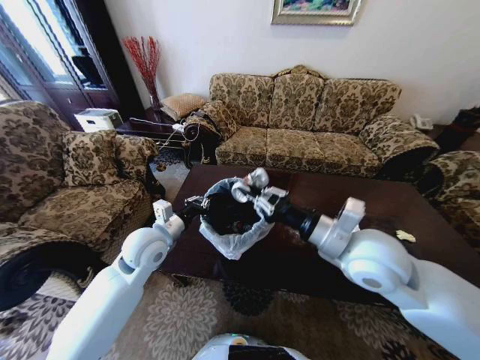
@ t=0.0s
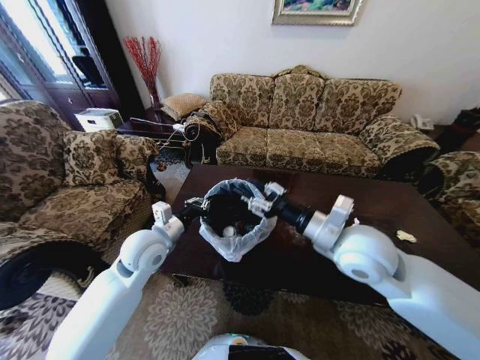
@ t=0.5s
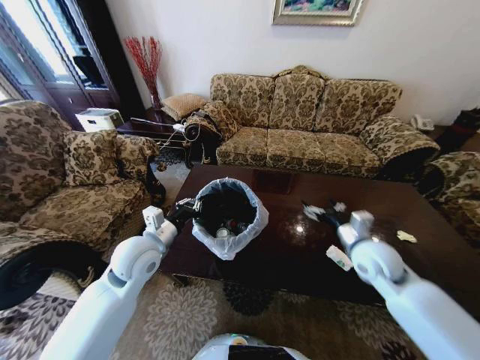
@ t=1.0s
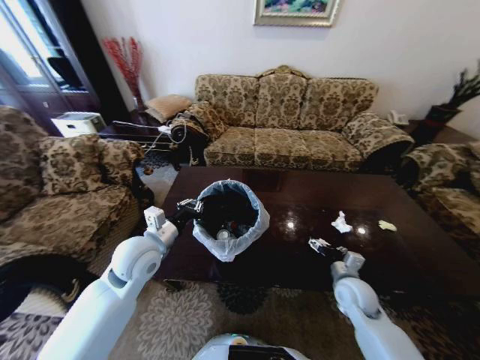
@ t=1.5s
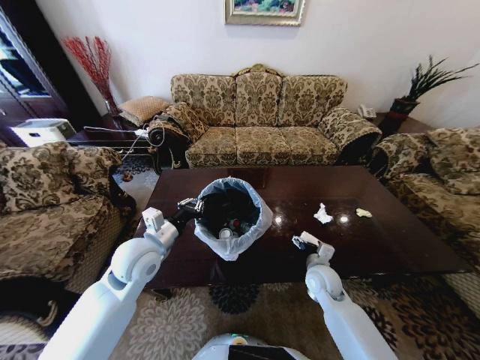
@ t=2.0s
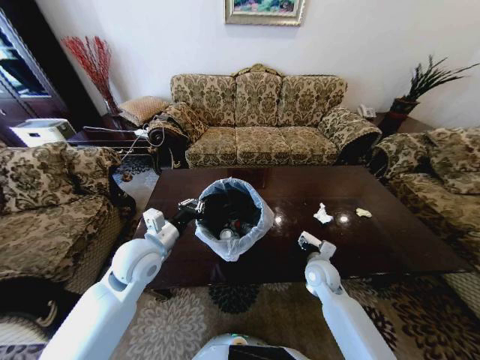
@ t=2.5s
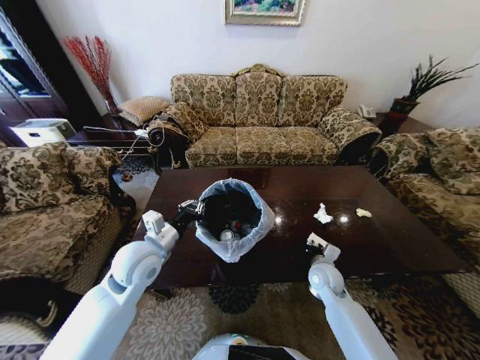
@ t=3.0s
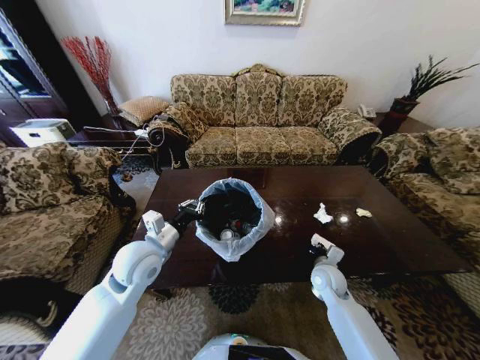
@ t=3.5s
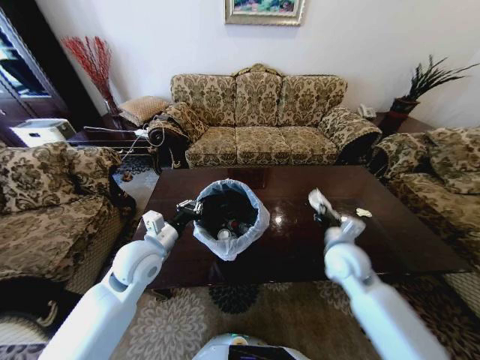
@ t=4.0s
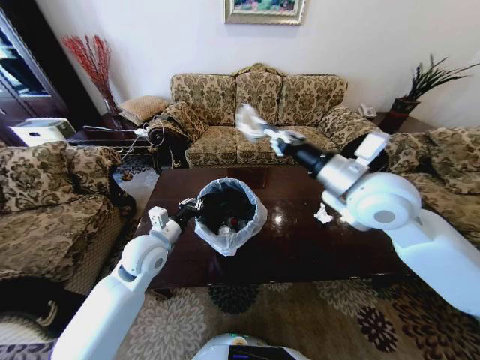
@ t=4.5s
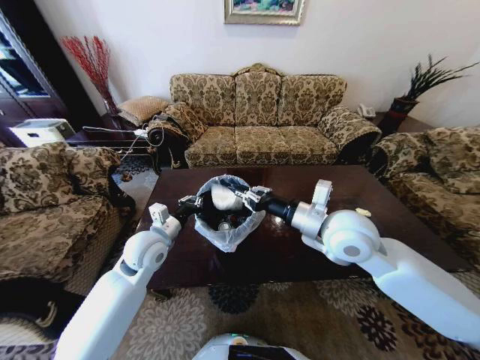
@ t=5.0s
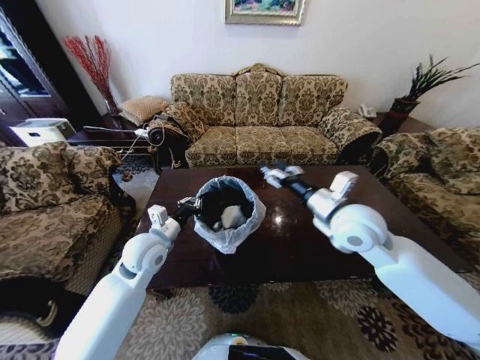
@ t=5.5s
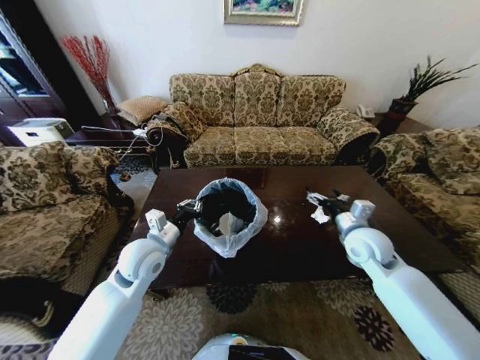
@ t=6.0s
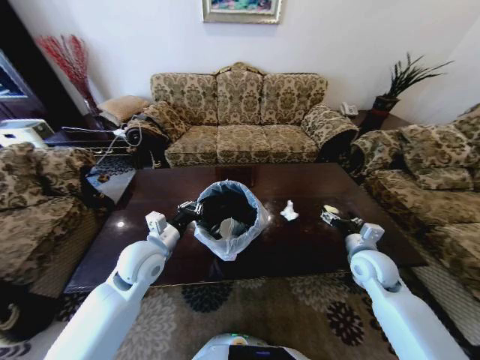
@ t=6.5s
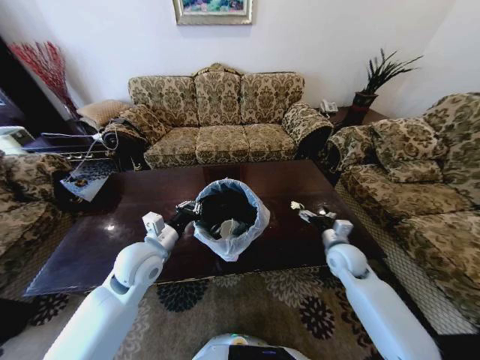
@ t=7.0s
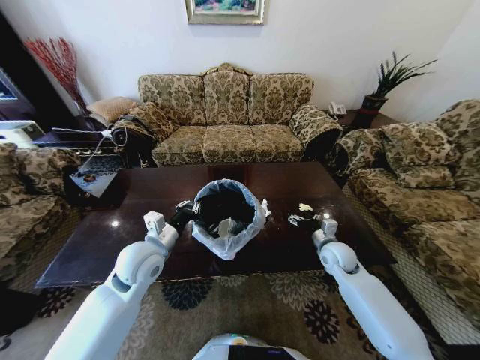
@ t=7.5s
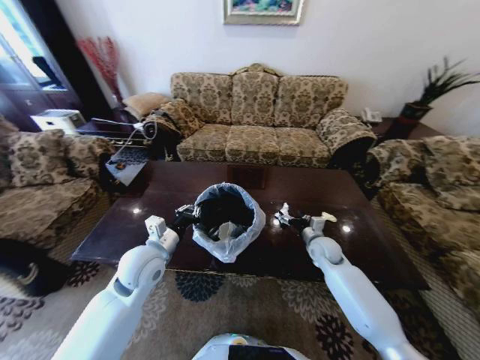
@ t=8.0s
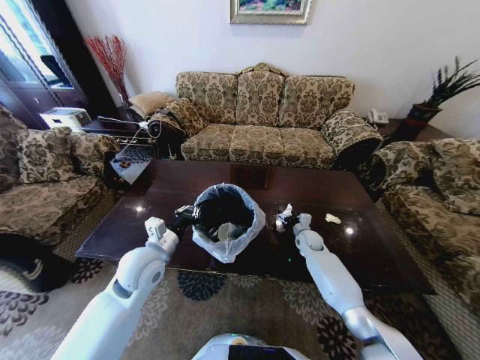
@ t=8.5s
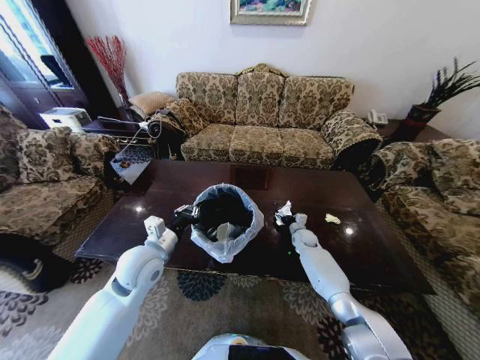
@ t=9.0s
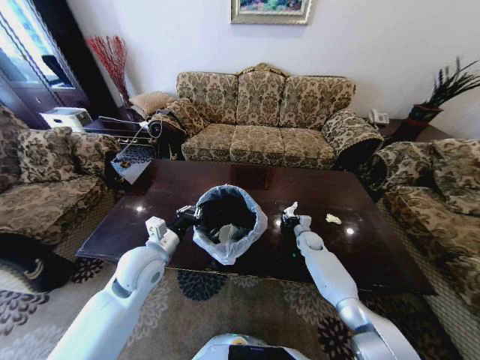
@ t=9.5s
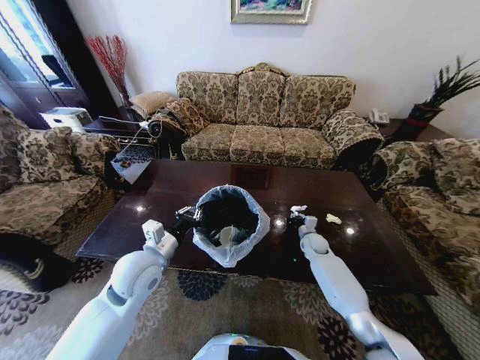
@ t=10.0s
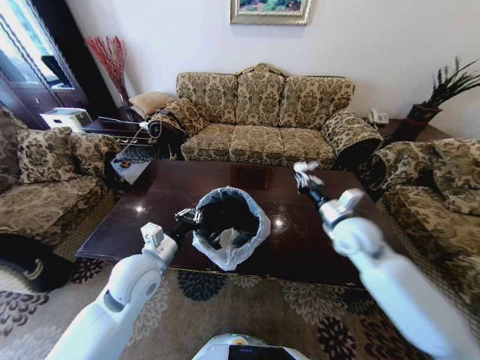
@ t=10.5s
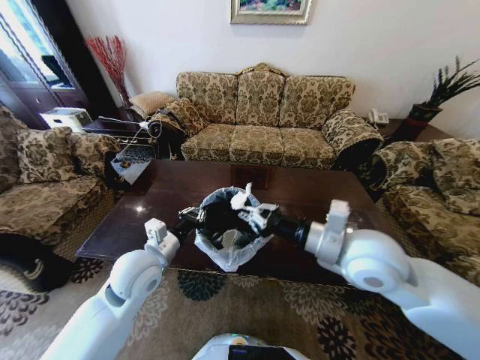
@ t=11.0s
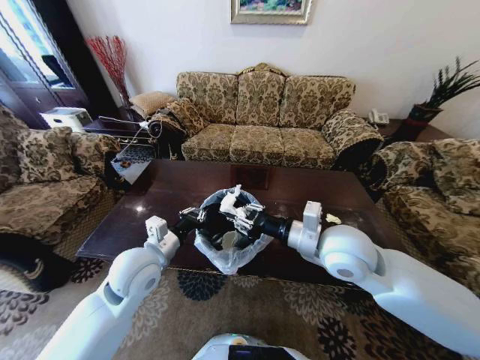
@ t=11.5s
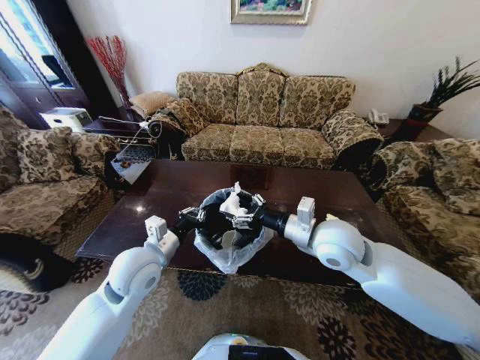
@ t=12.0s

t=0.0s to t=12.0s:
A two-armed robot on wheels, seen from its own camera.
Task of the whole recording: Move to the front of the table and place the trash on the table into the trash bin.
t=0.0s to t=2.0s: The right gripper moves downward, some 25 cm, and opens up.
t=2.0s to t=4.0s: The right gripper heads upward, covering roughly 15 cm, and closes its fingers.
t=4.0s to t=6.0s: The right gripper heads to the right, covering some 5 cm, reaches roughly 20 cm upward, then returns, and opens its fingers.
t=6.0s to t=8.0s: The right gripper shifts approximately 15 cm downward and forward.
t=8.0s to t=10.0s: The right gripper is displaced downward and forward by approximately 10 cm, and closes up.
t=10.0s to t=12.0s: The right gripper shifts some 35 cm upward and backward, and opens its fingers.

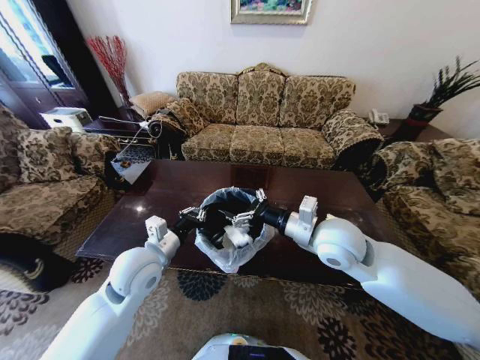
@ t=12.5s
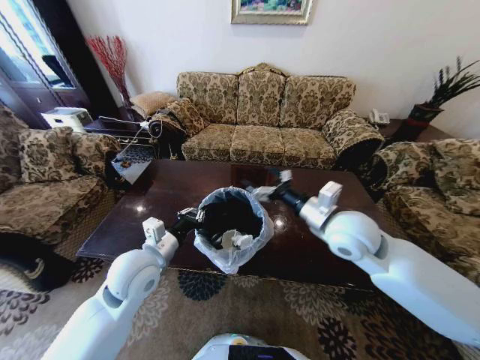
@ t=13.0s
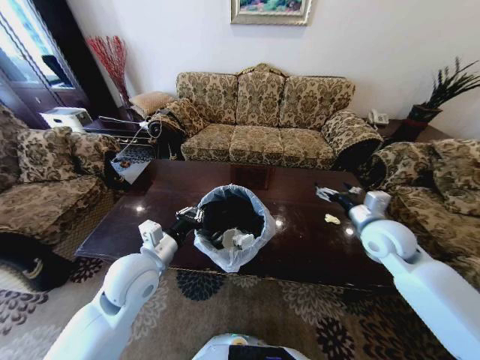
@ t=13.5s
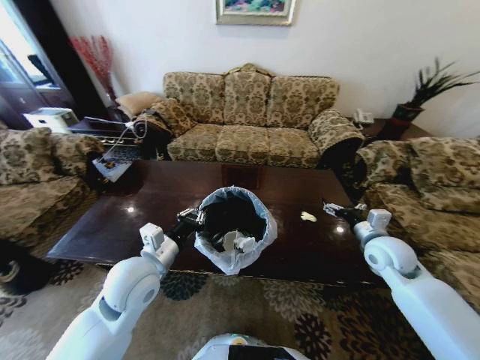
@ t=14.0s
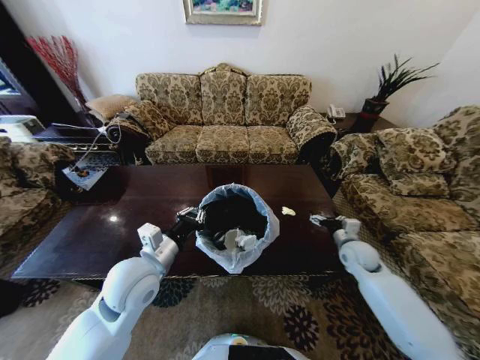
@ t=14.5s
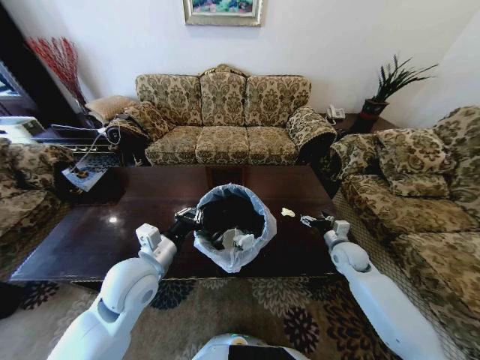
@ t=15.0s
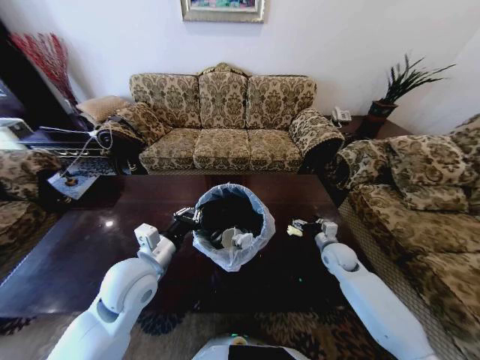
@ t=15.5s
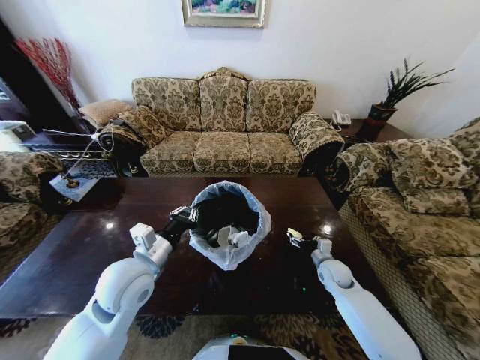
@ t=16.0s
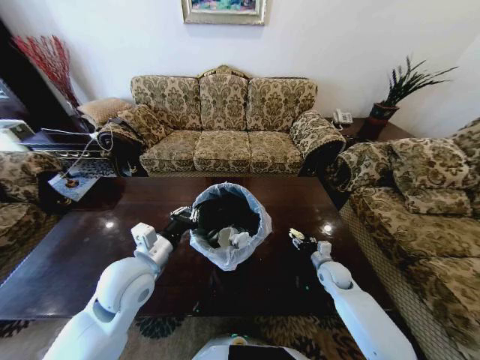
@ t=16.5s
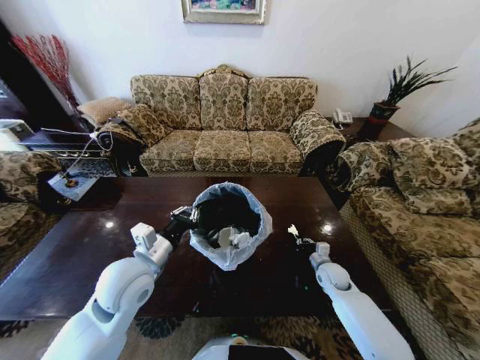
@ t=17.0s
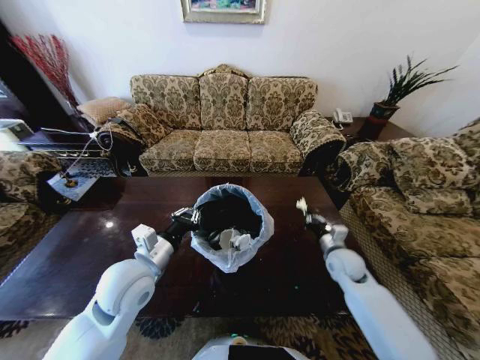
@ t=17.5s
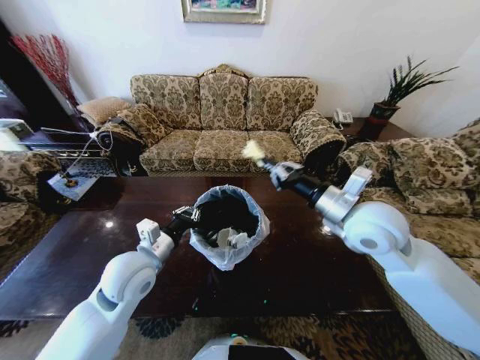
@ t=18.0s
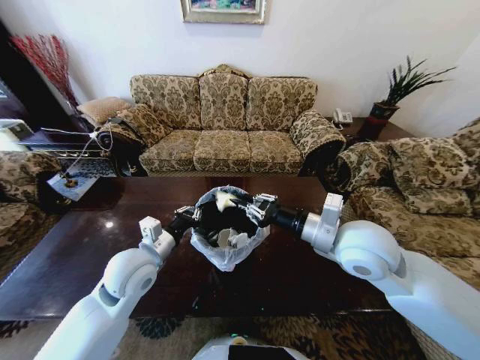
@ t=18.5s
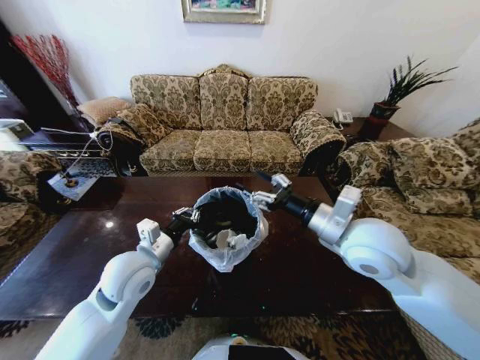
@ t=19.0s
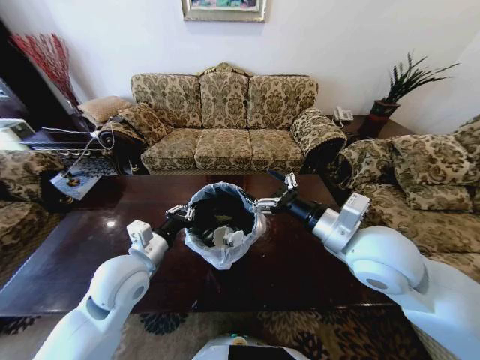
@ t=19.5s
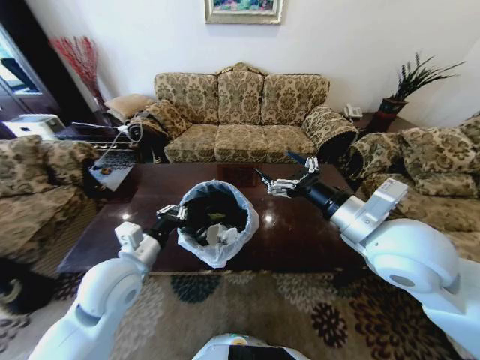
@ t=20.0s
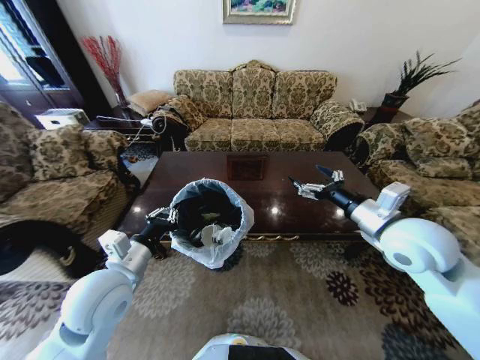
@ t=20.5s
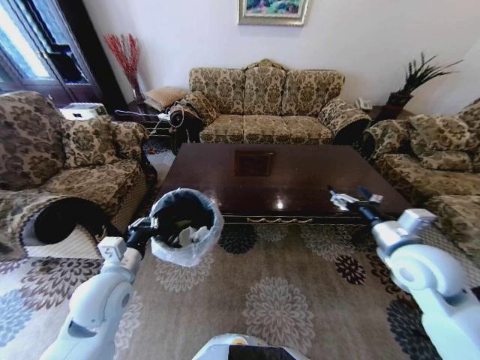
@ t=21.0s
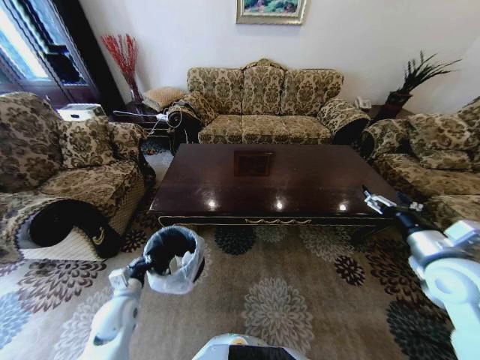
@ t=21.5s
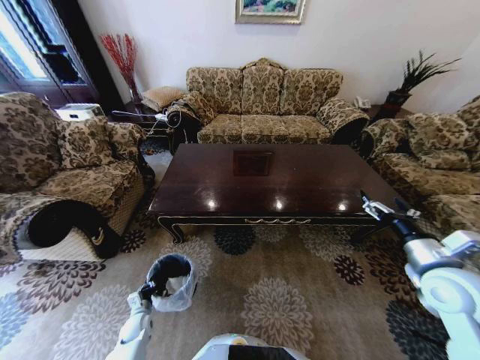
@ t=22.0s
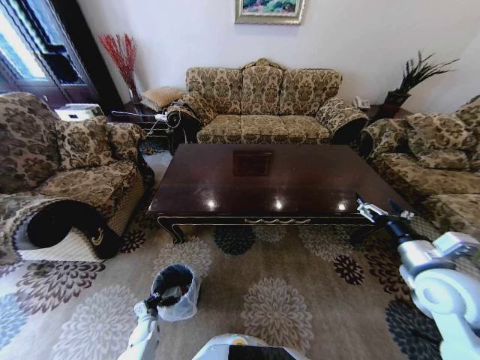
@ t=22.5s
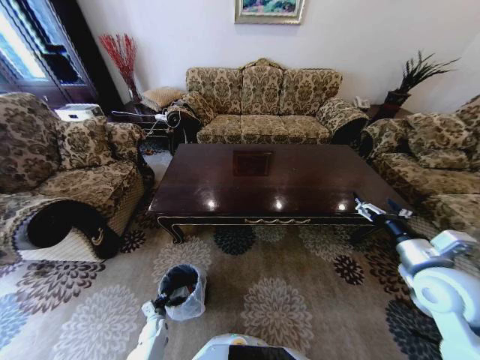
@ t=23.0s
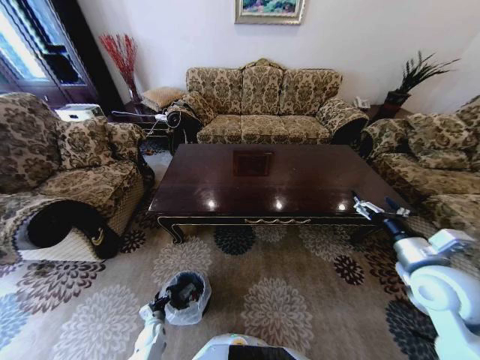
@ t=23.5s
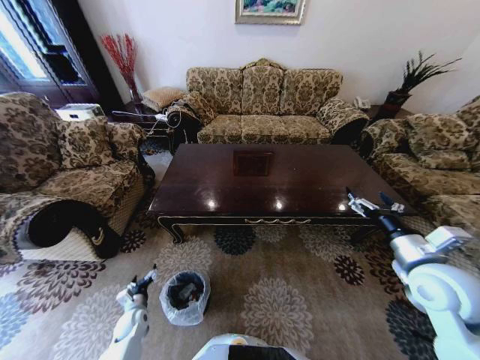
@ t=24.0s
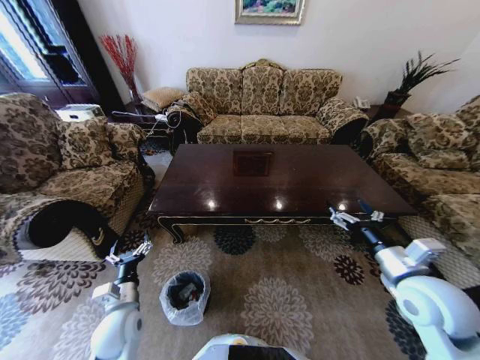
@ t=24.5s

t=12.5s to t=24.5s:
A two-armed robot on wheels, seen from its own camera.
Task of the whole recording: Move to the front of the table and place the trash on the table into the trash bin.
t=12.5s to t=14.5s: The right gripper is displaced to the right and downward by about 25 cm.
t=14.5s to t=16.5s: The right gripper travels downward by some 10 cm, and closes up.
t=16.5s to t=18.5s: The right gripper heads upward, covering about 35 cm, and closes up.
t=18.5s to t=20.5s: The right gripper shifts roughly 10 cm to the right, and opens up. The left gripper is displaced backward by some 5 cm.
t=20.5s to t=22.5s: The left gripper heads downward, covering some 50 cm; the right gripper is displaced to the right, downward and backward by approximately 10 cm.
t=22.5s to t=24.5s: The left gripper shifts about 30 cm upward, and opens its fingers.

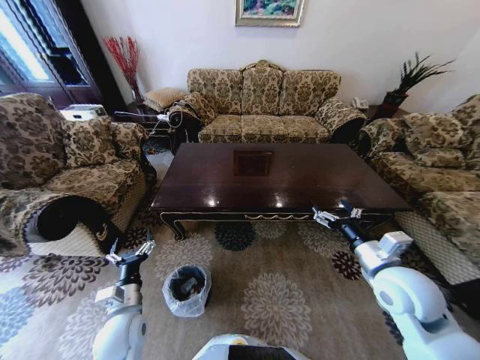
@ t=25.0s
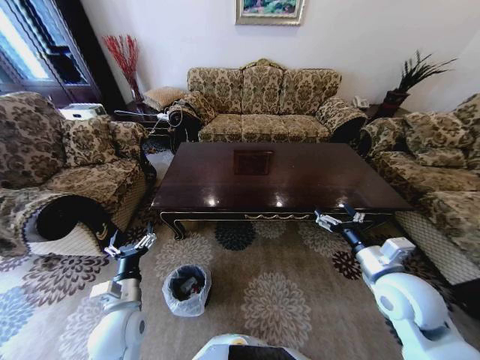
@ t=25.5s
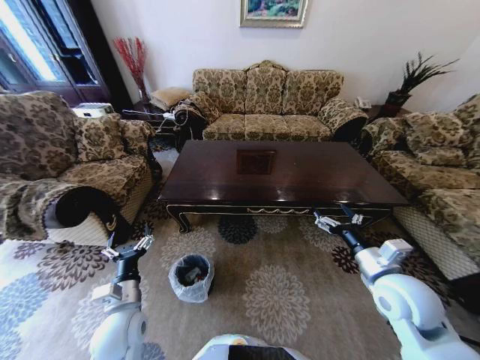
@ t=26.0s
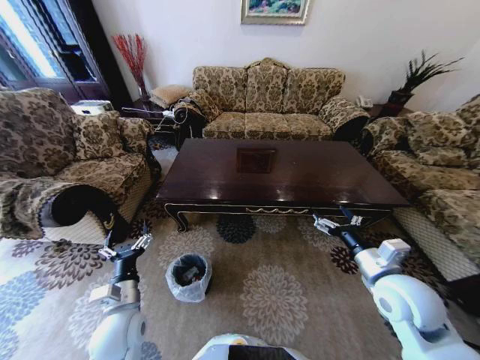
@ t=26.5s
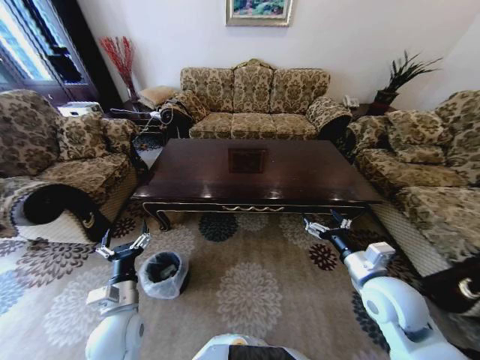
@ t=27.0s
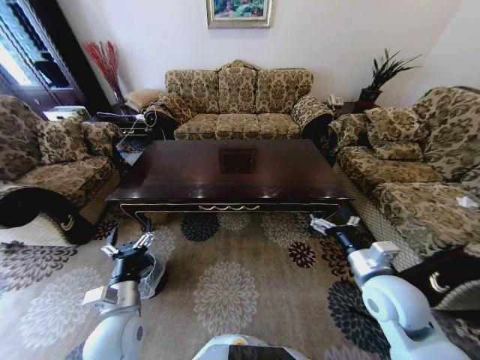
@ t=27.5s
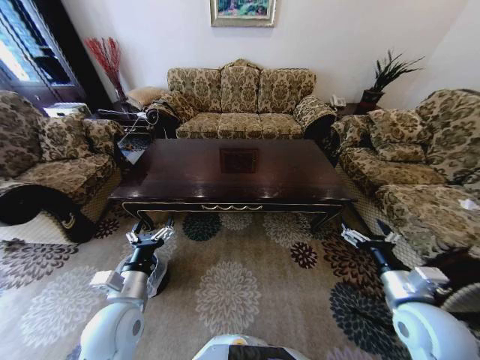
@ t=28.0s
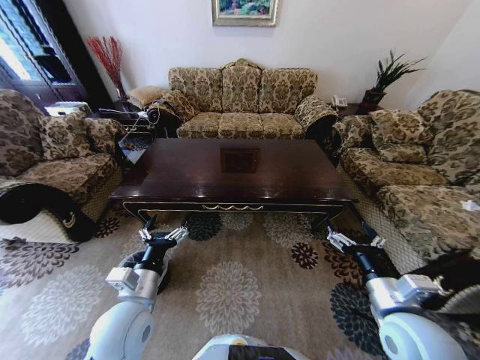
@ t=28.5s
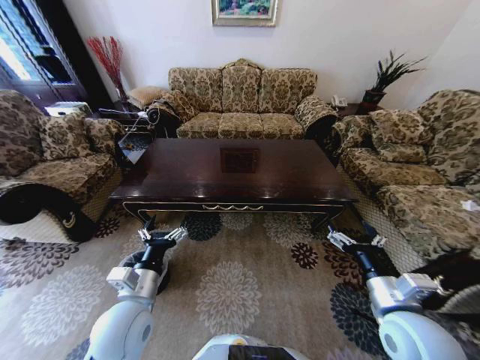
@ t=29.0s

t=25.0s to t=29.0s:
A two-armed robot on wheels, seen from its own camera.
Task of the whole recording: Move to the front of the table and place the trash on the table into the trash bin.
t=27.0s to t=29.0s: The left gripper travels upward by some 5 cm, while the right gripper goes roughly 5 cm backward.
